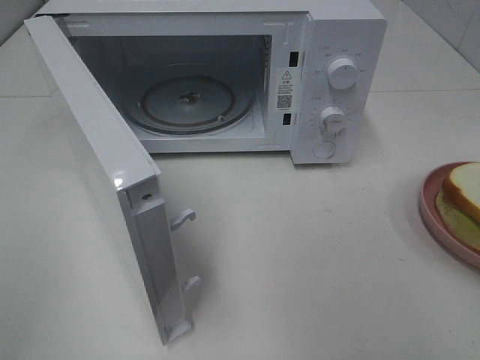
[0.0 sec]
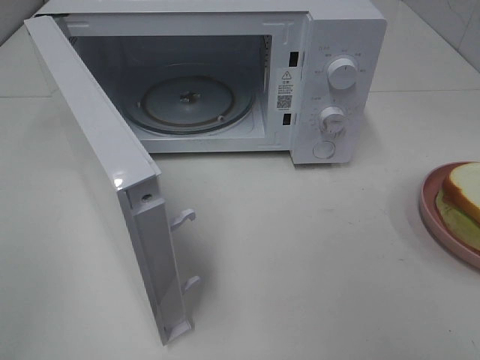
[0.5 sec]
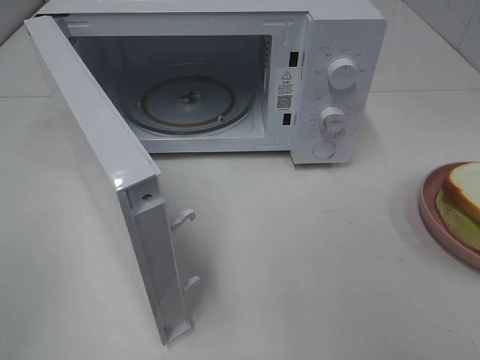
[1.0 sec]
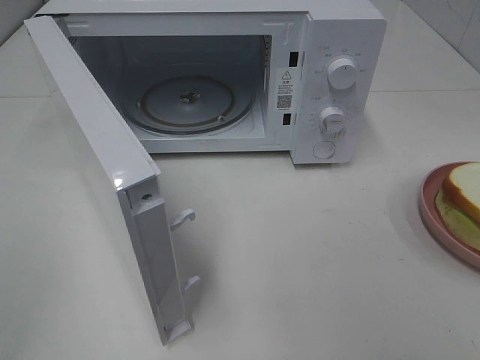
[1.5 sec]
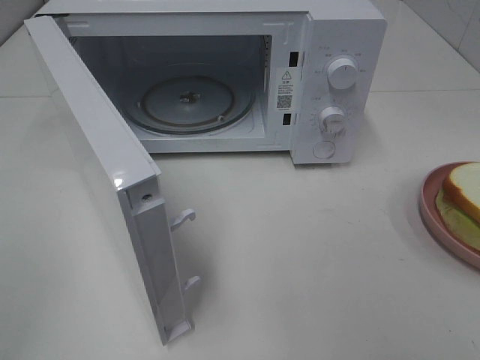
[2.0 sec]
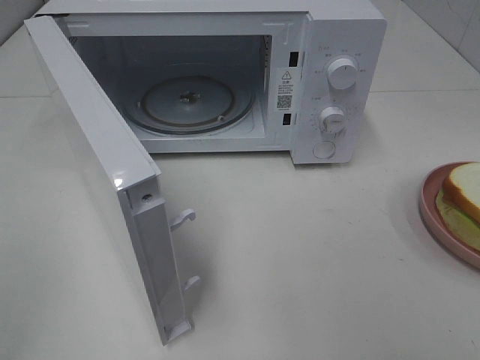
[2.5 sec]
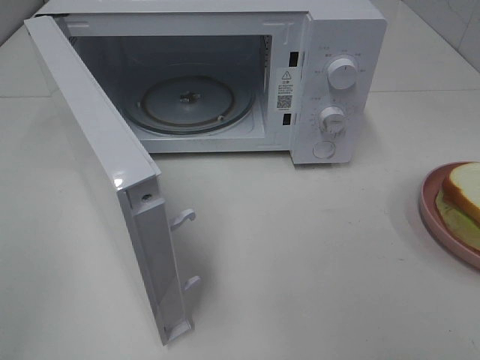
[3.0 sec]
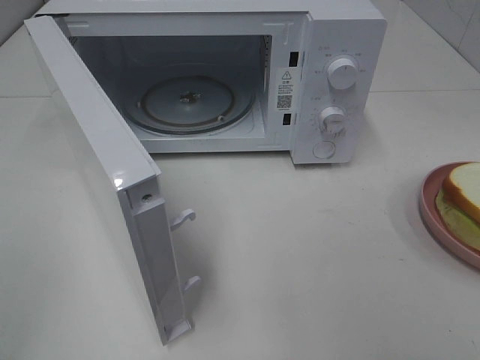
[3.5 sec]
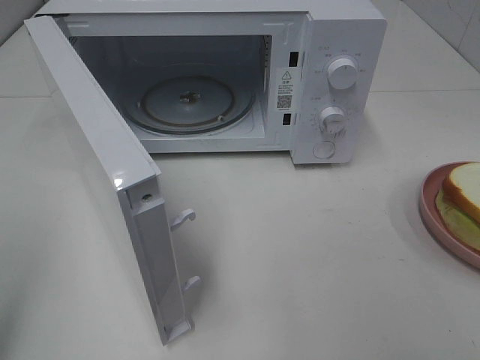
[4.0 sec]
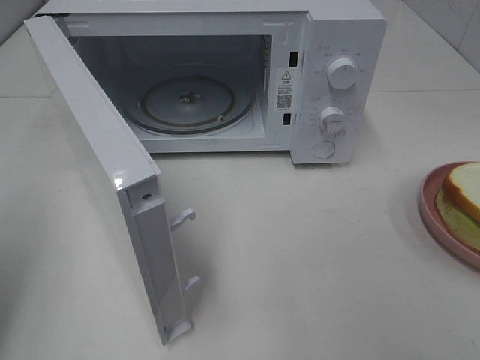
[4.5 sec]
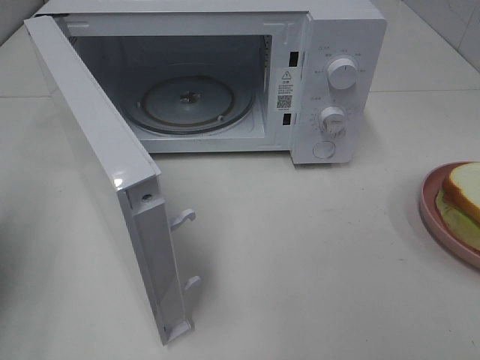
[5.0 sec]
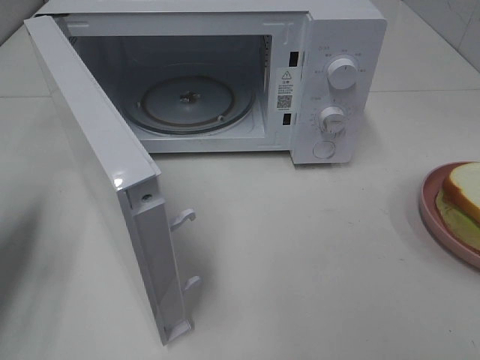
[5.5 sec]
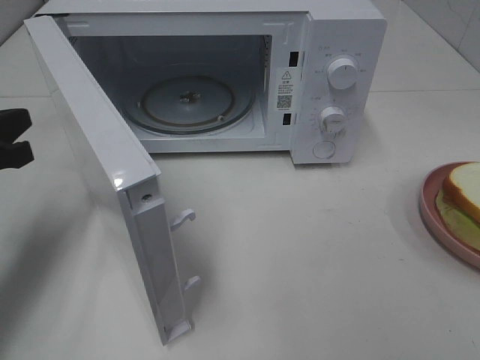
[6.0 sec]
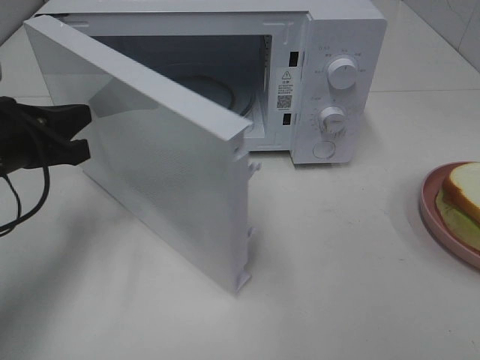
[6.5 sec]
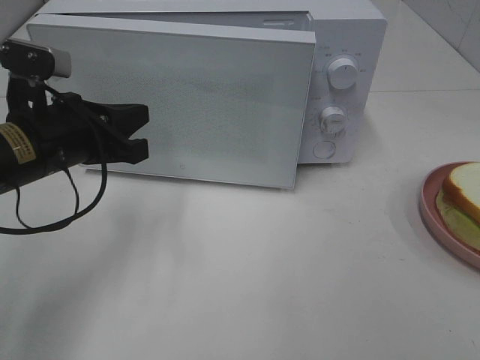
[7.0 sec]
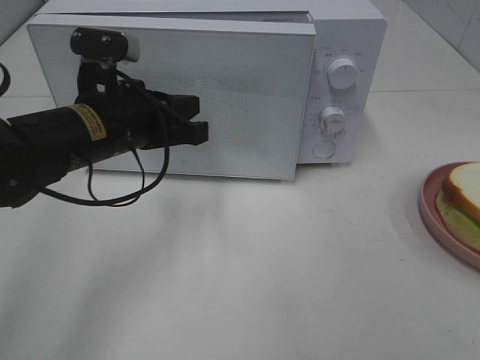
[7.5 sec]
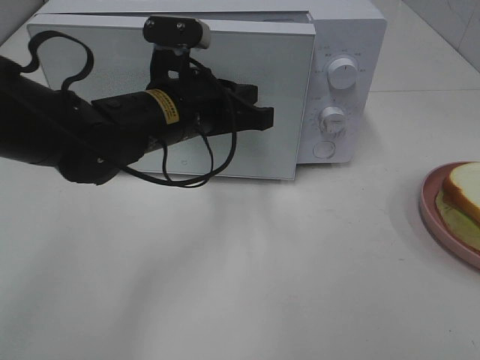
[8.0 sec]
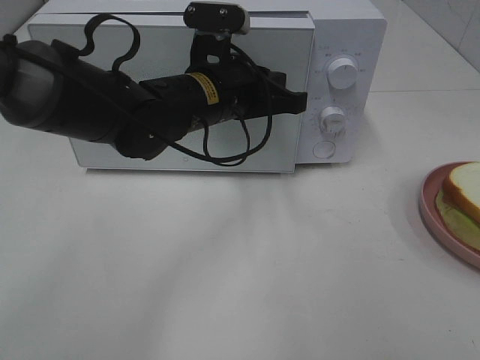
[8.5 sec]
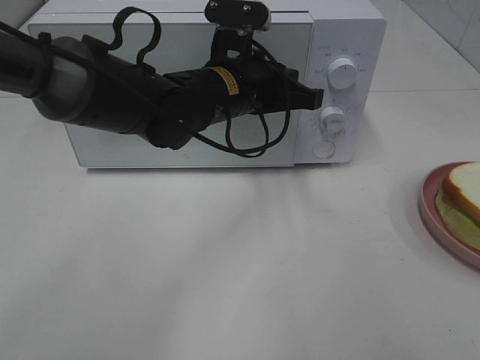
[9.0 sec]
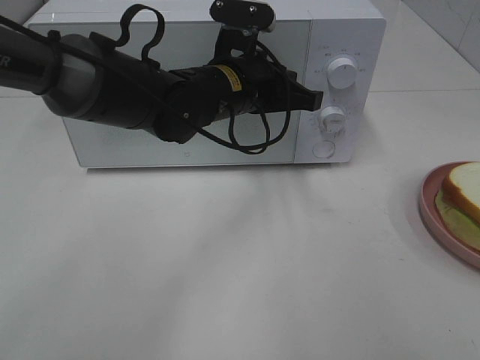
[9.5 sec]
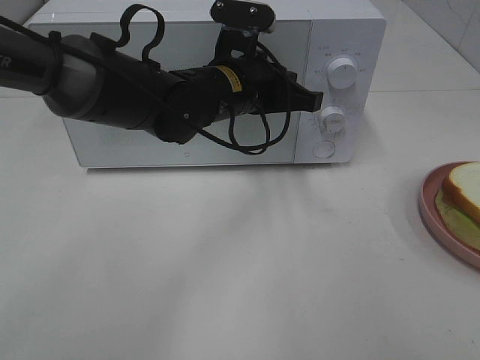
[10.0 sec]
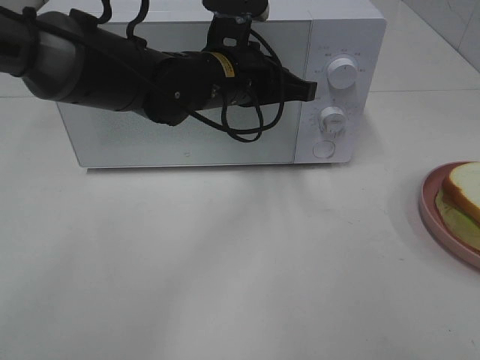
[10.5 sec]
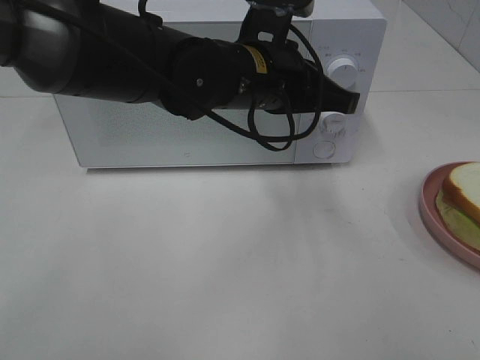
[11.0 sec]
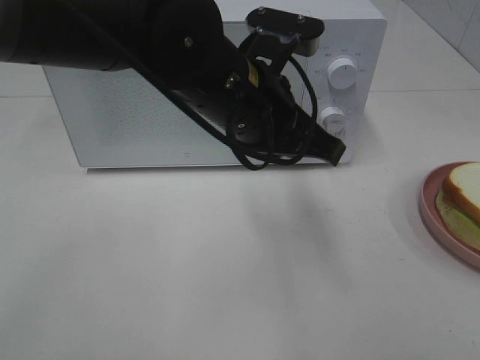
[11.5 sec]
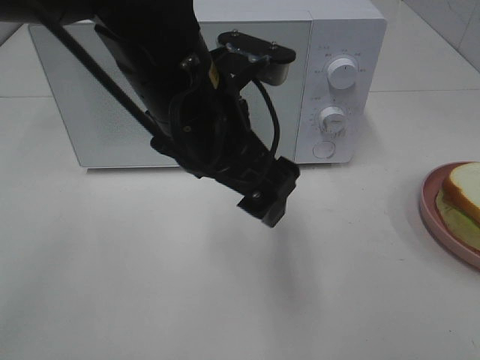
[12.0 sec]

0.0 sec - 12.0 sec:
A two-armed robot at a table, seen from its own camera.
Task of the whole recording: Heat Sandwich.
Step, 0.0 sec - 10.5 sec: Left hand: close the microwave door.
4.0 sec - 6.0 sec: The left gripper shifts roughly 25 cm forward and downward, and closes its fingers.
6.0 sec - 8.0 sec: The left gripper travels to the right by some 25 cm.
8.0 sec - 10.0 sec: The left gripper changes place by some 5 cm.
10.0 sec - 12.0 sec: The left gripper travels backward and upward by roughly 15 cm, and opens its fingers.

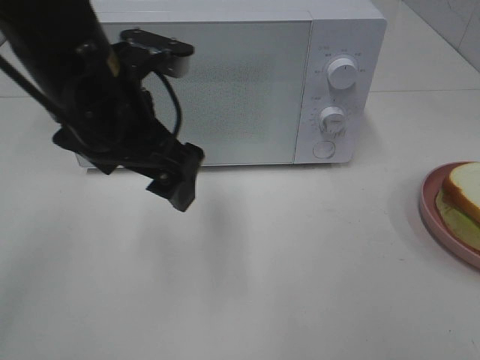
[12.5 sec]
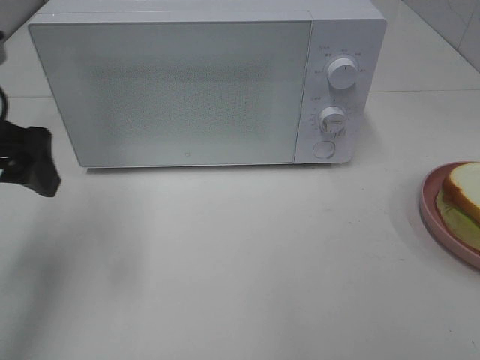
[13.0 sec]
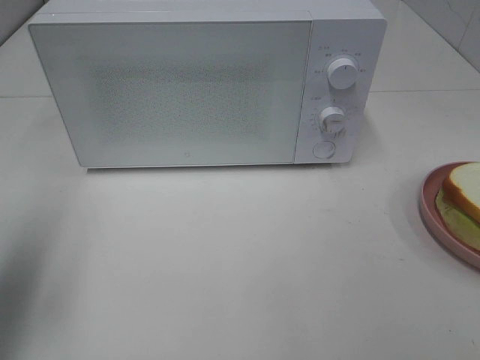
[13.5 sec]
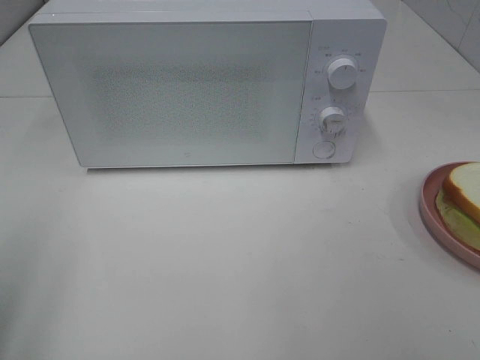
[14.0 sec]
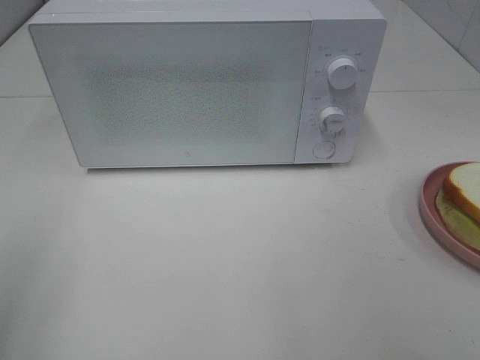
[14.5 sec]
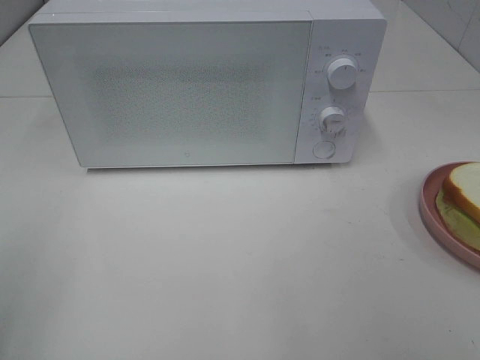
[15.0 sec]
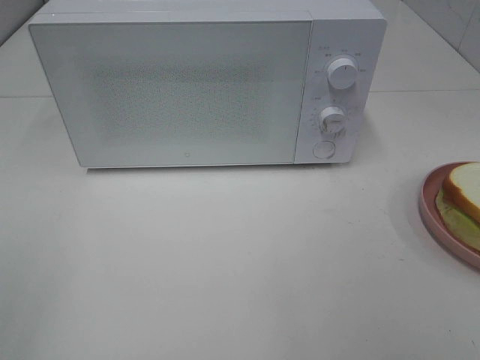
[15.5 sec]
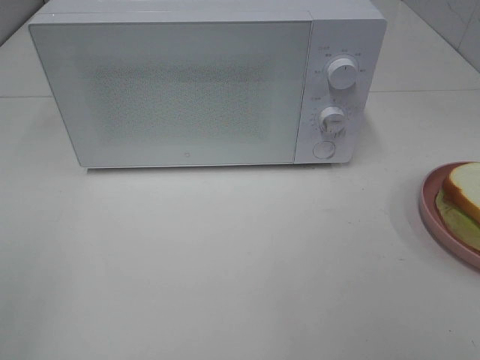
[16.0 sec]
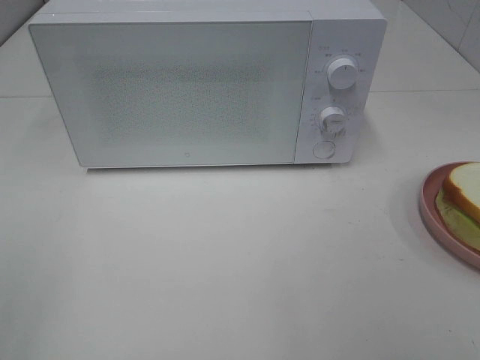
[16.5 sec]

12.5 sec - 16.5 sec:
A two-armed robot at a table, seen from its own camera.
Task of the whole recording: Heat Sandwich.
12.5 sec - 14.5 sec: The left gripper goes some 30 cm to the left and backward.
